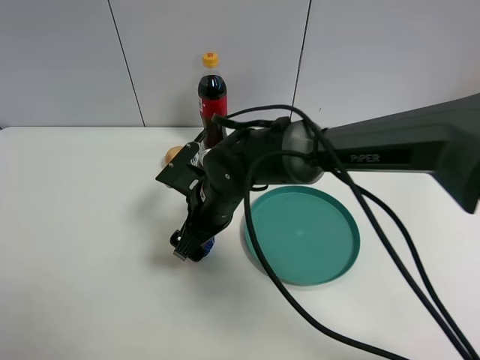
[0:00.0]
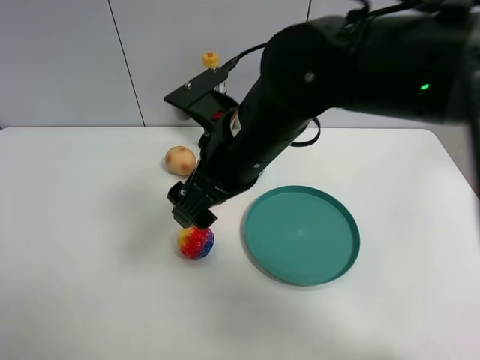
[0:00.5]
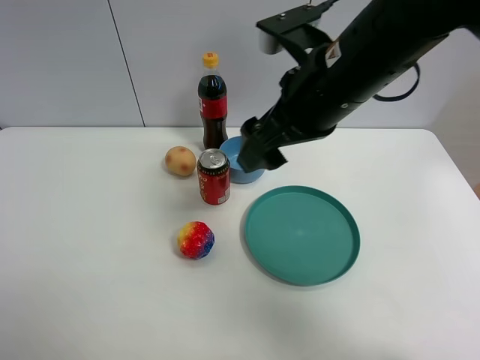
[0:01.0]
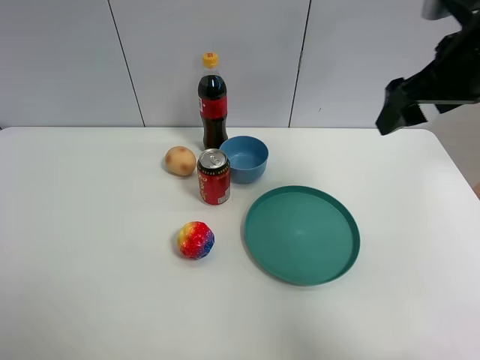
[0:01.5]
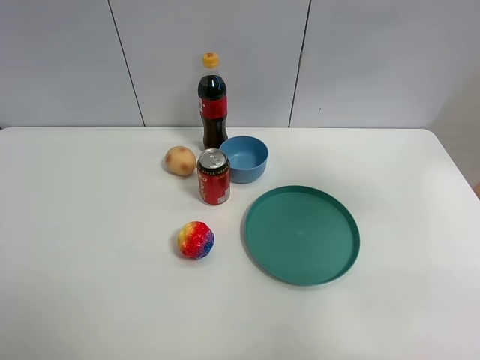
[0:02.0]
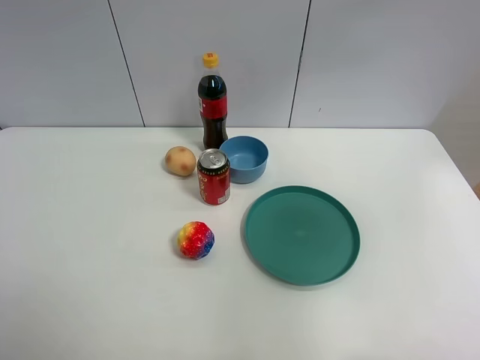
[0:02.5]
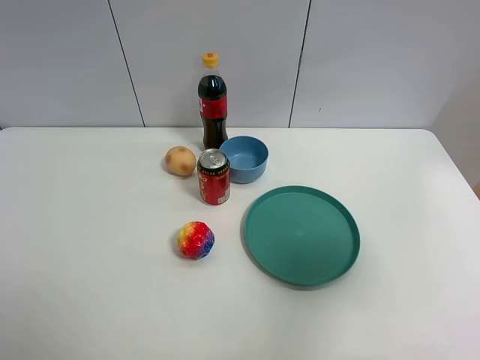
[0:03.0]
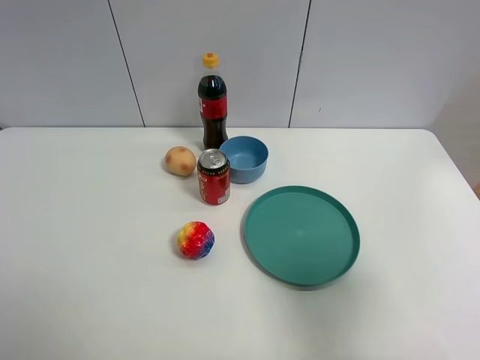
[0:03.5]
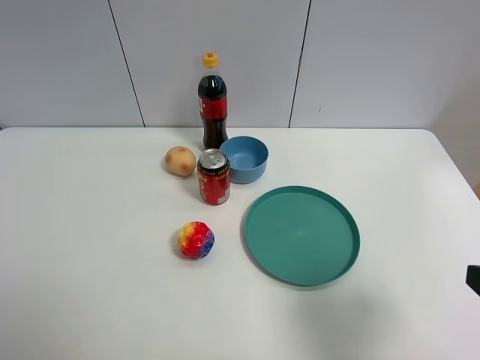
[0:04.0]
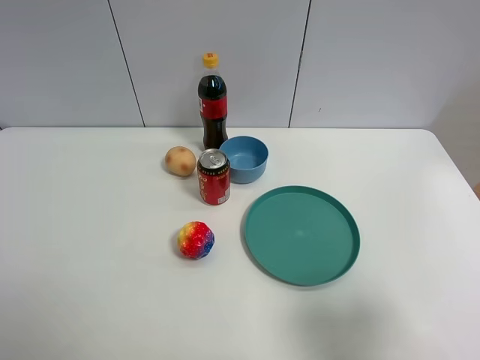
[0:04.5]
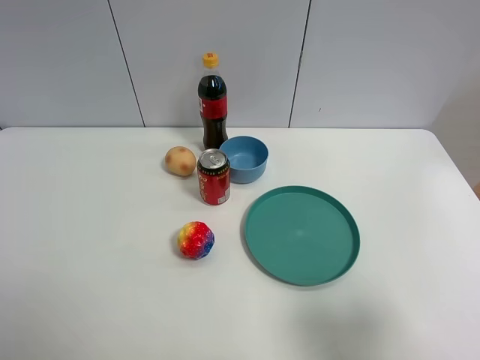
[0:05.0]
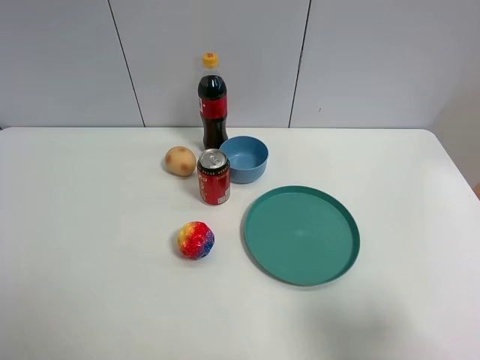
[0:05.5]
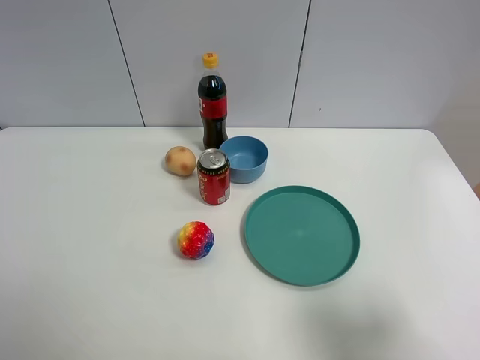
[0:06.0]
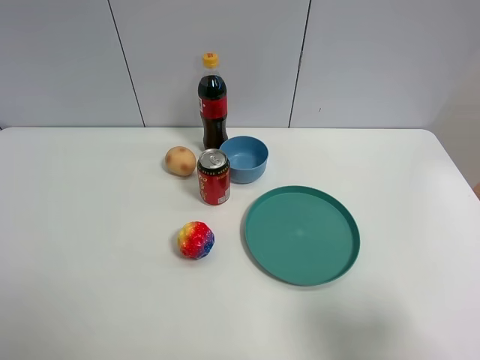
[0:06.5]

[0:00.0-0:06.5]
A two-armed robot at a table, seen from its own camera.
Task of the whole recording: the gripper move the object.
0:00.0 to 0:02.0: The right gripper shifts approximately 40 cm to the right and upward.
0:02.0 to 0:04.5: The right gripper goes approximately 25 cm backward and downward.

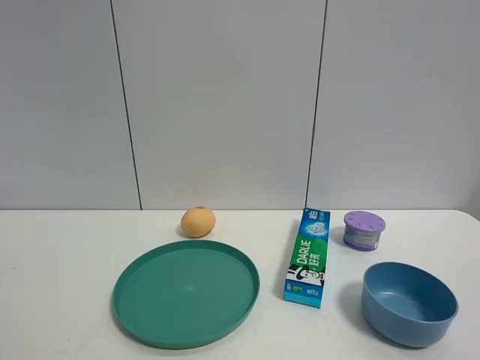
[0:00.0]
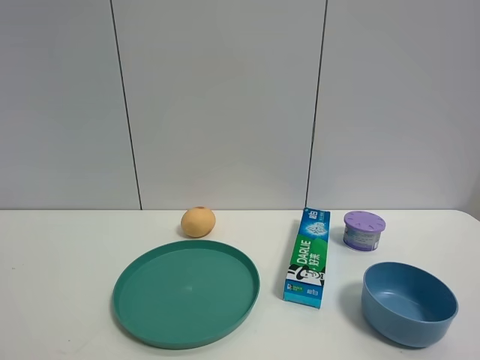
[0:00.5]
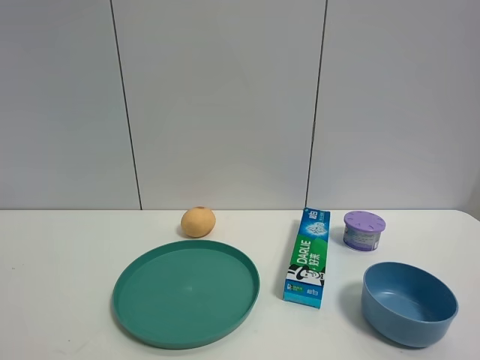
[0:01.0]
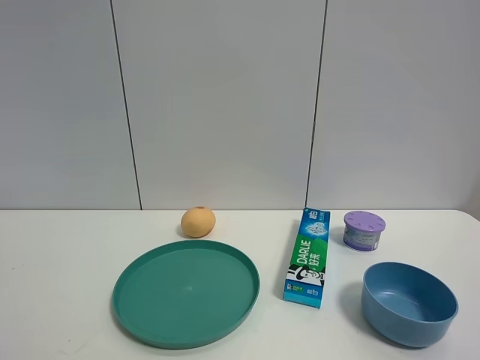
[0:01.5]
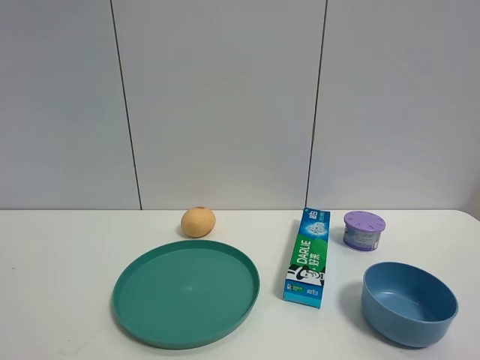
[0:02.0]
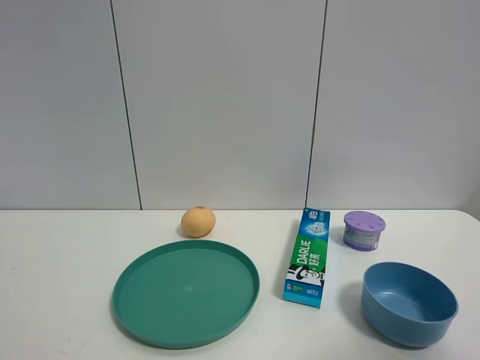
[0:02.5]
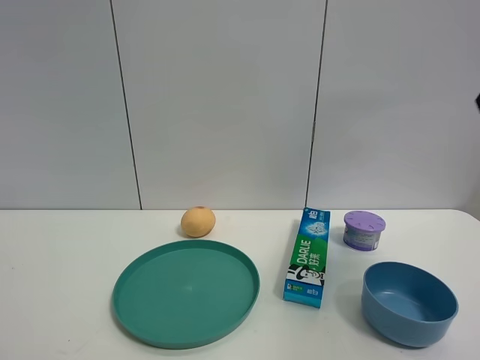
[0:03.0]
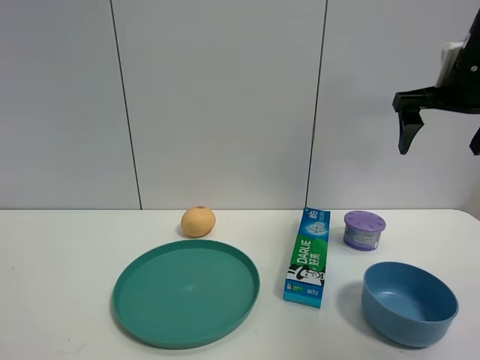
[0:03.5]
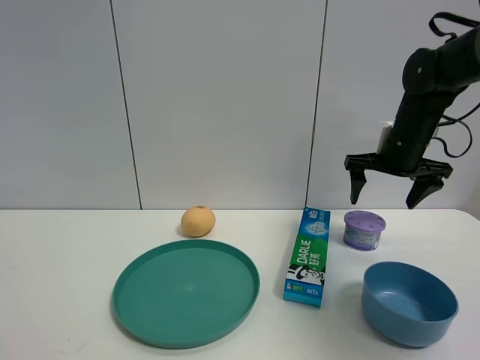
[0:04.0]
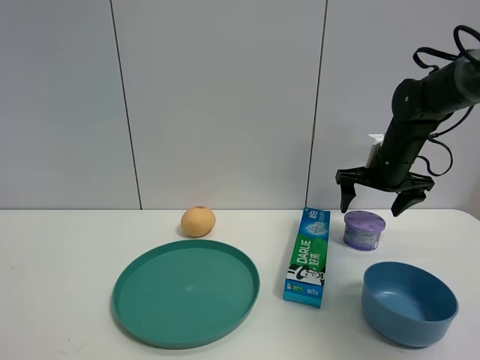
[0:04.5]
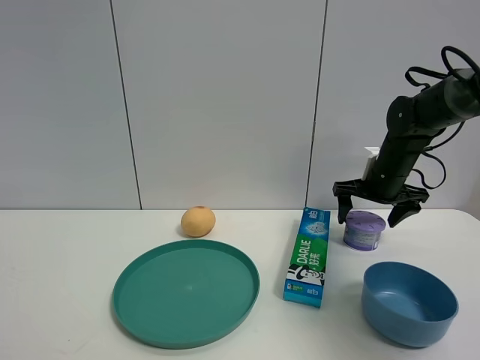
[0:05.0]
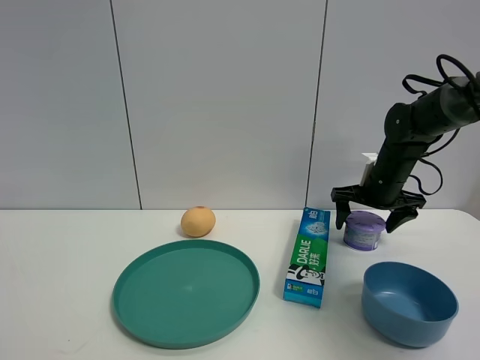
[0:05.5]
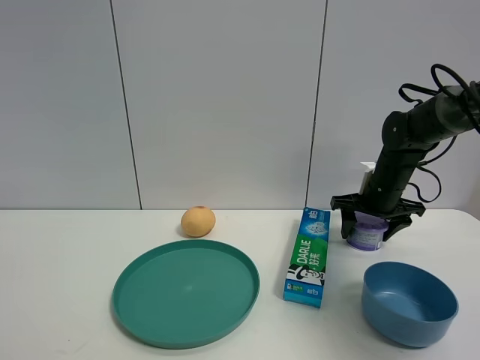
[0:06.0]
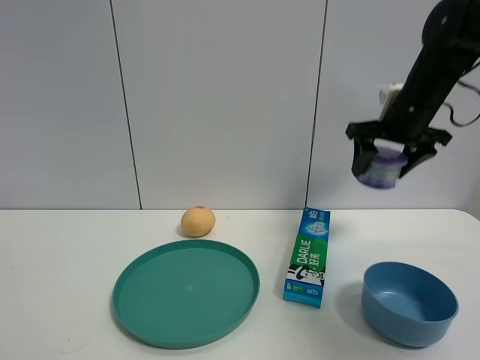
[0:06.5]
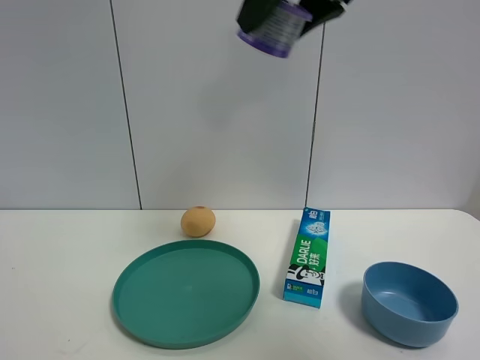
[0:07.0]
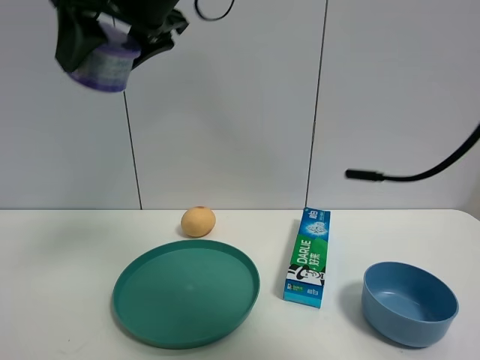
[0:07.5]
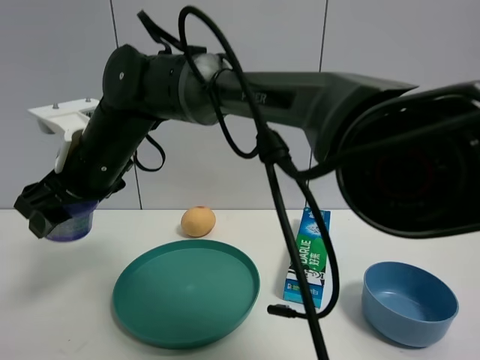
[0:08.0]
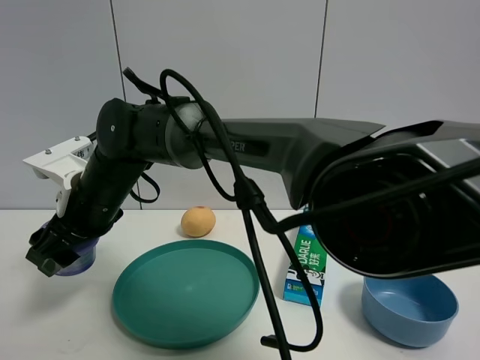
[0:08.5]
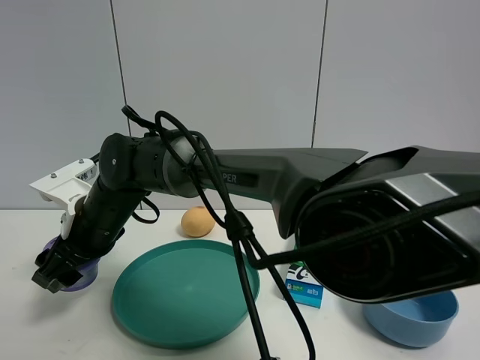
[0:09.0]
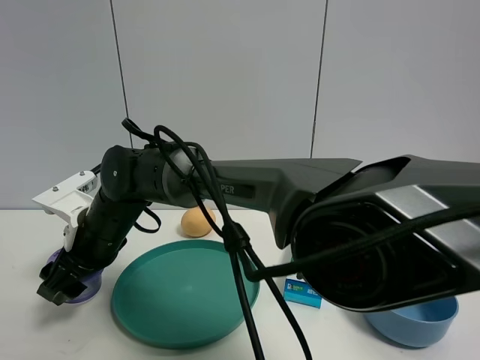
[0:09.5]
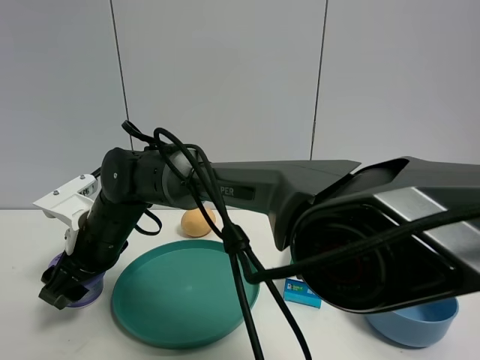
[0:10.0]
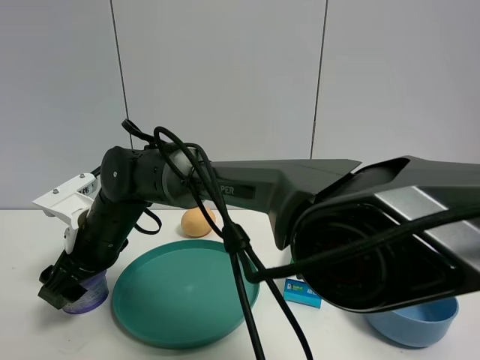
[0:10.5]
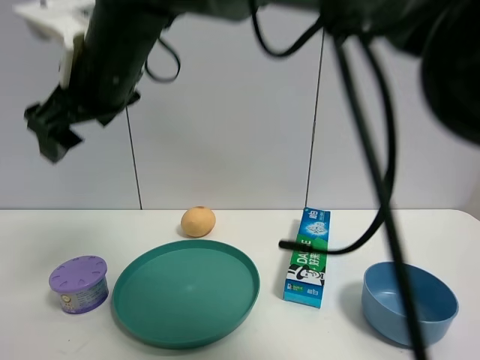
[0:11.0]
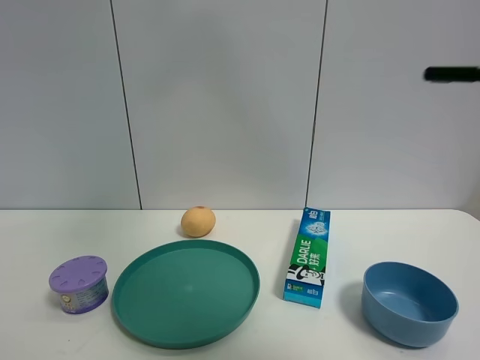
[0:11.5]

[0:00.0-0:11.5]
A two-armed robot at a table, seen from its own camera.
Task of the whole recording: the gripper move the object.
Step, 0:00.0 to 0:05.5: Grasp the Incense box with the right gripper.
Step, 0:06.0 to 0:10.5: Place the Incense box on the table with the right gripper.
0:02.0 to 0:04.0: The right gripper travels forward by approximately 50 cm, and opens up.
0:04.0 to 0:06.0: The right gripper moves downward, some 10 cm, and closes up.
0:06.0 to 0:07.5: The right gripper heads to the left, upward and backward, covering about 40 cm.
0:07.5 to 0:09.5: The right gripper heads downward, covering approximately 25 cm.
0:09.5 to 0:11.5: The right gripper is displaced upward and to the right by roughly 40 cm, and opens its fingers.

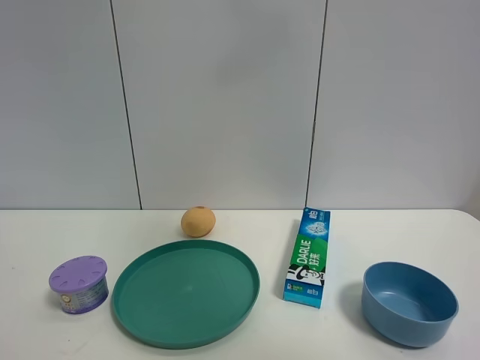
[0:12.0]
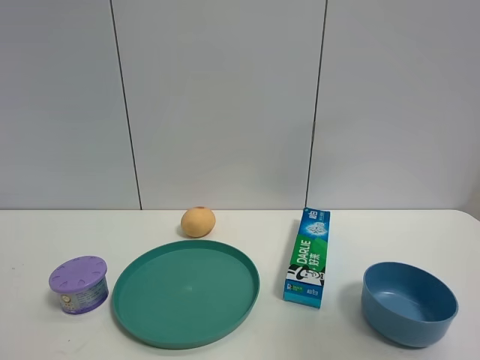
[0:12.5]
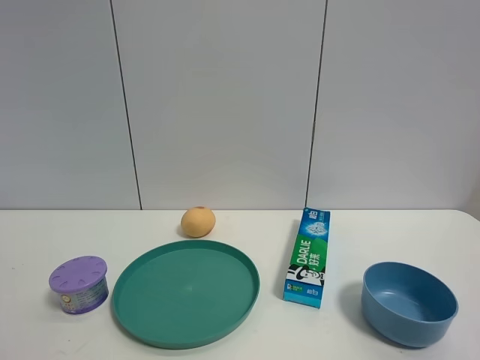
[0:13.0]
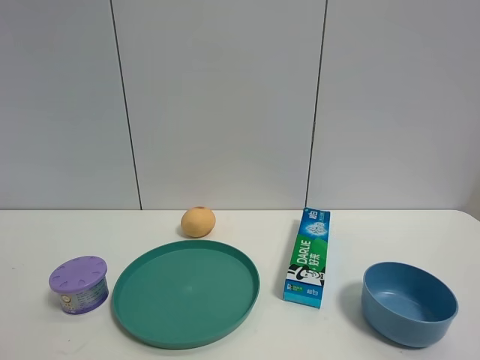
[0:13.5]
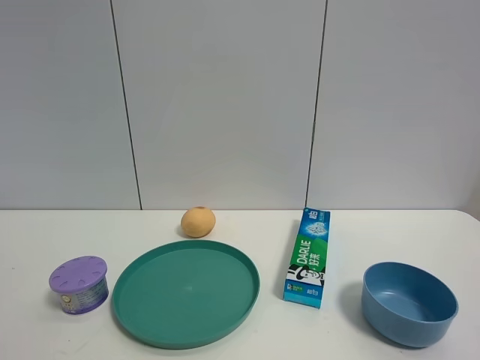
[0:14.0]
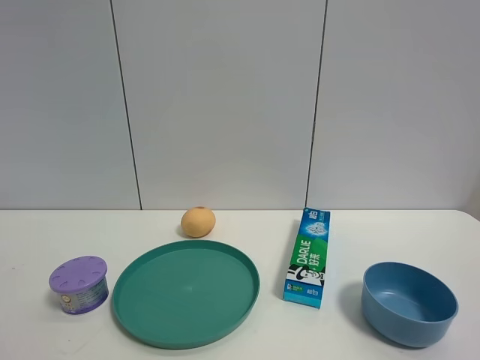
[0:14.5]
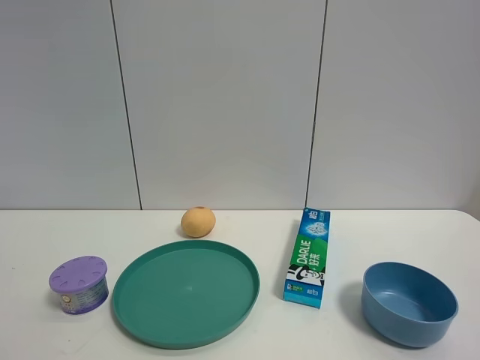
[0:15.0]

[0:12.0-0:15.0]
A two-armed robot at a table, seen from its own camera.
Task of the whole recording: the gripper move the object.
0:12.0 to 0:13.5: The right gripper moves backward, downward and to the right, some 35 cm.
0:13.5 to 0:15.0: The two grippers keep their place.

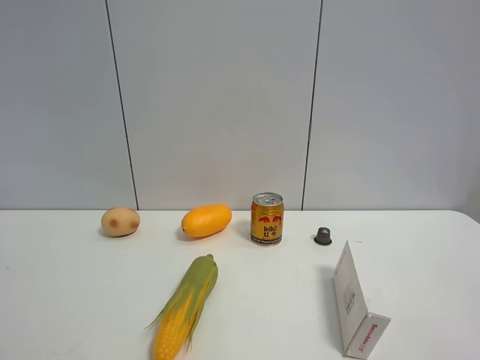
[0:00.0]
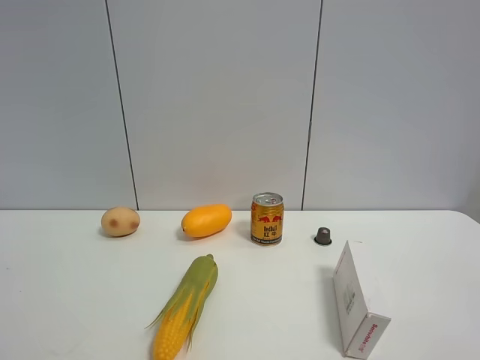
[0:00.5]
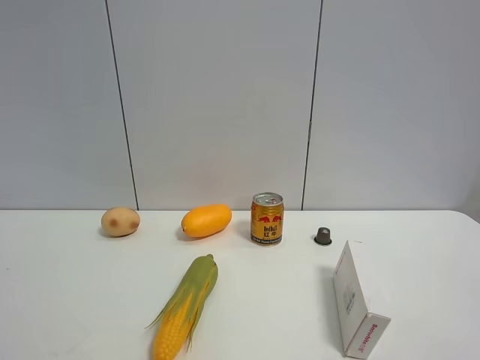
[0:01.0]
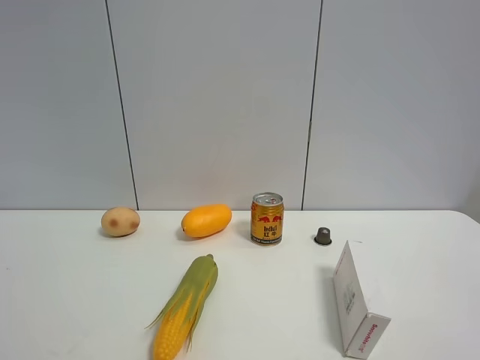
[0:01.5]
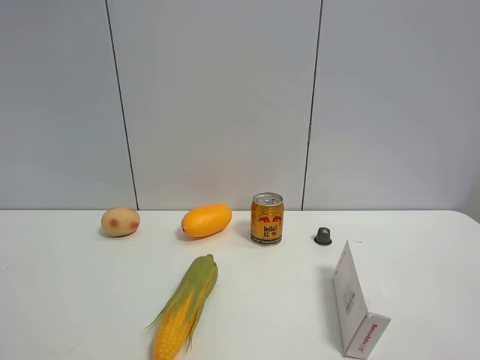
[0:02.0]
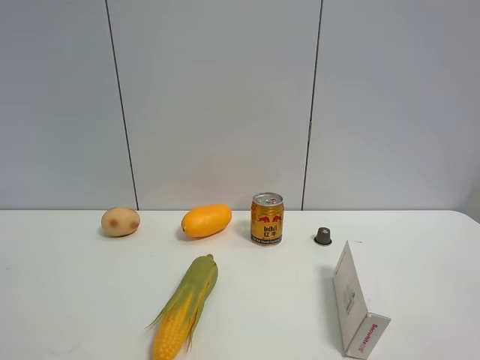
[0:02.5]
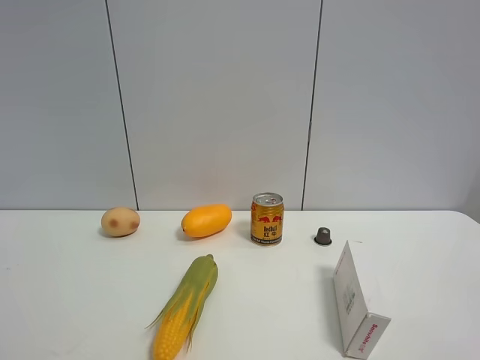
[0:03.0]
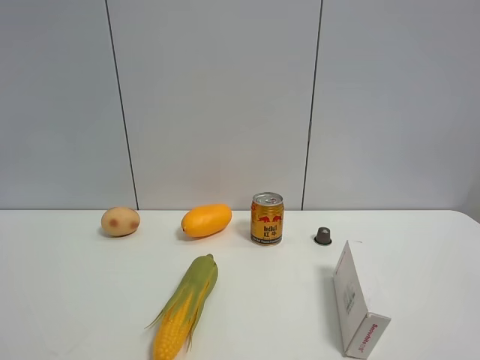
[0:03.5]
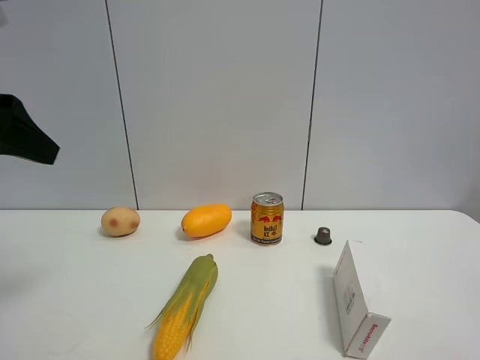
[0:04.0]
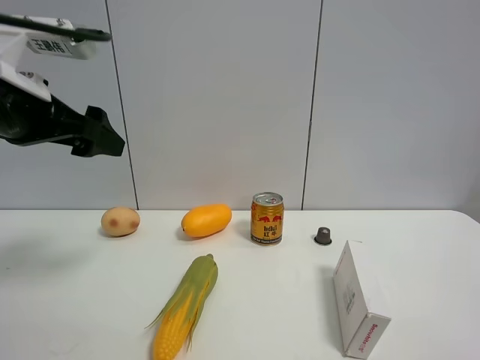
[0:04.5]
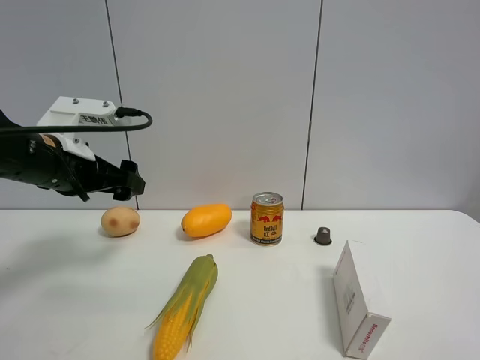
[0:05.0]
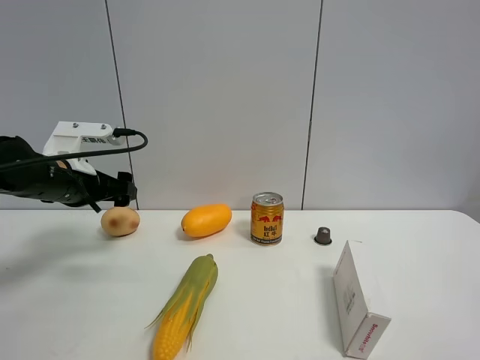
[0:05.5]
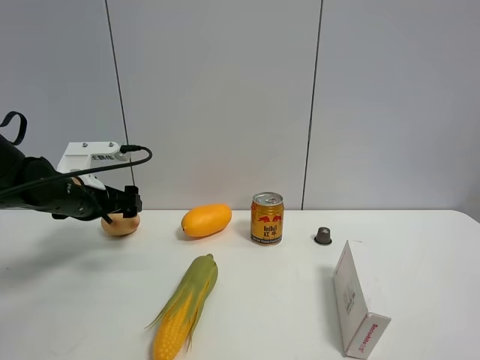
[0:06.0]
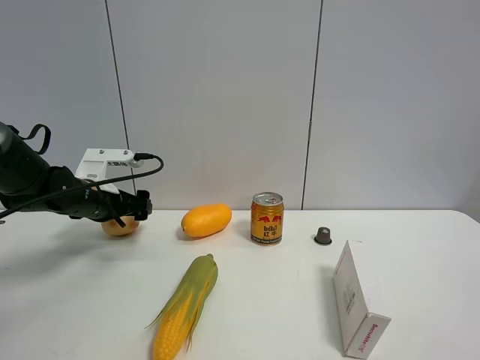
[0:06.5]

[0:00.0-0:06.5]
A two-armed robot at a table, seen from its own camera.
Task of the whole recording: the gripper move the object.
0:00.0 to 0:02.0: Neither gripper changes place.
0:02.0 to 0:04.5: The left gripper goes approximately 30 cm forward.
0:04.5 to 0:06.5: The left gripper heads downward and forward, covering about 20 cm.
